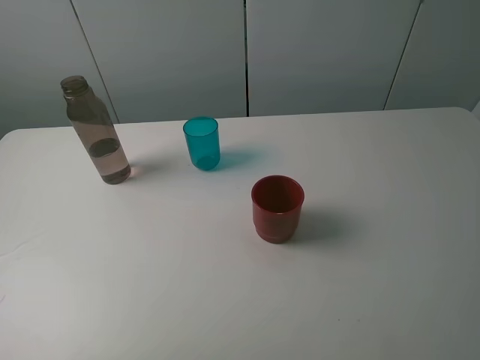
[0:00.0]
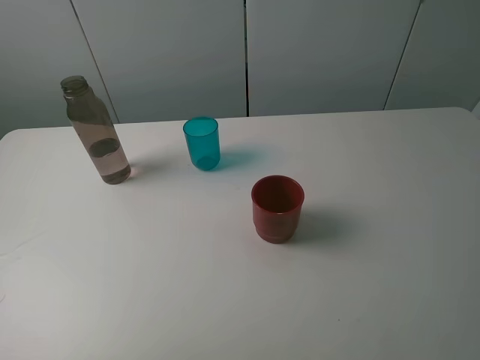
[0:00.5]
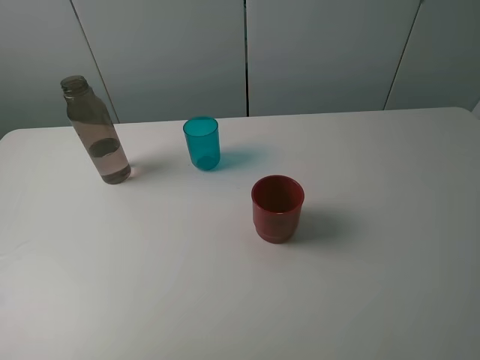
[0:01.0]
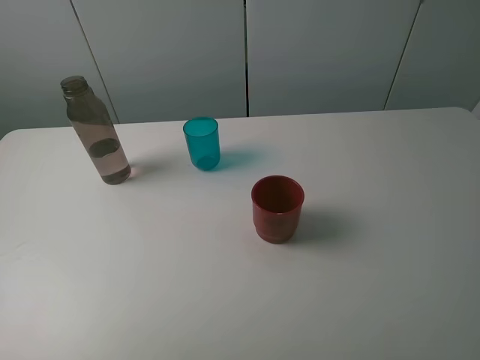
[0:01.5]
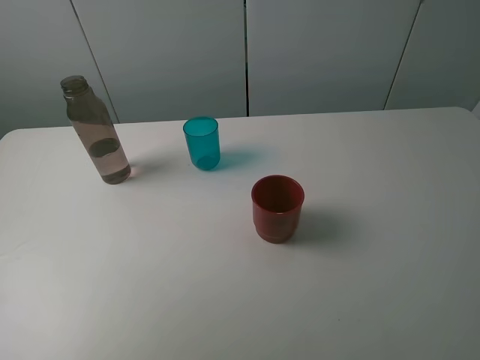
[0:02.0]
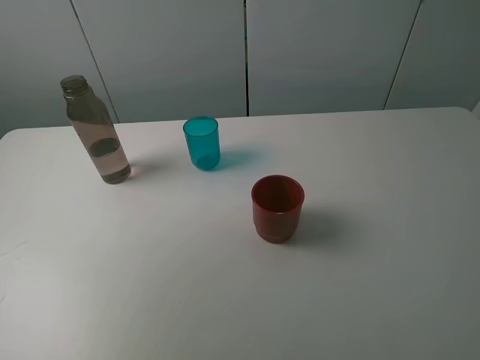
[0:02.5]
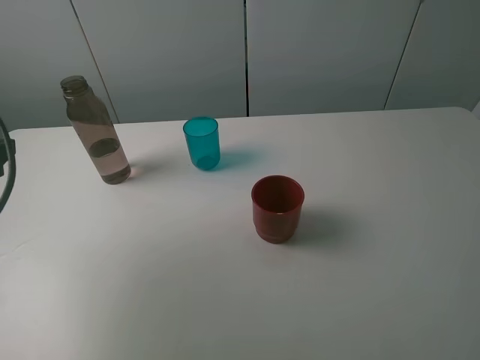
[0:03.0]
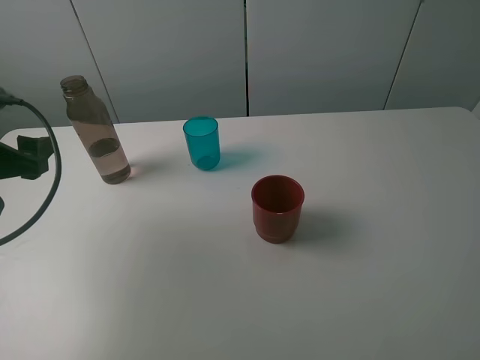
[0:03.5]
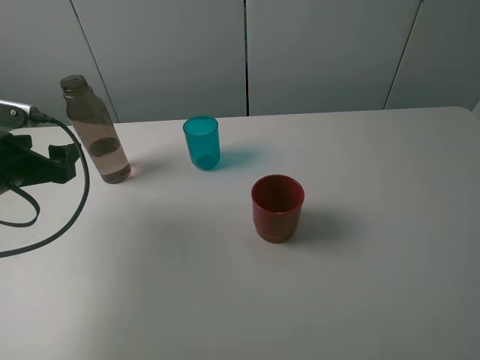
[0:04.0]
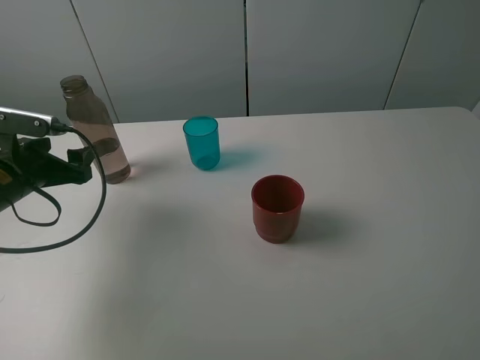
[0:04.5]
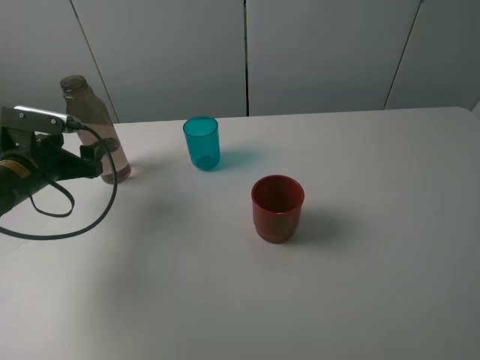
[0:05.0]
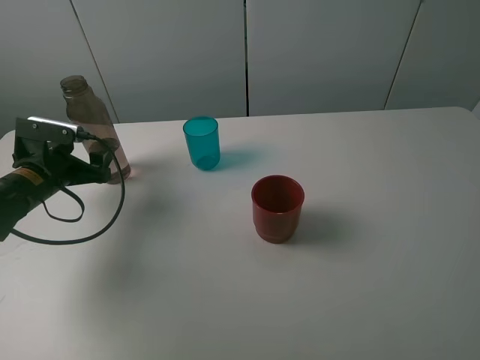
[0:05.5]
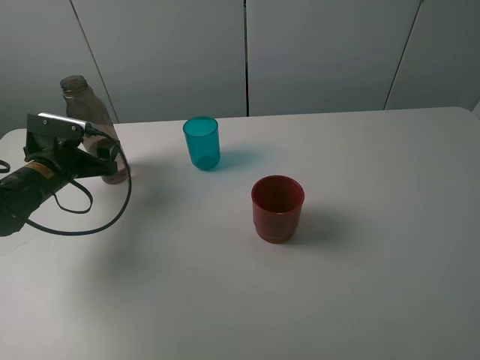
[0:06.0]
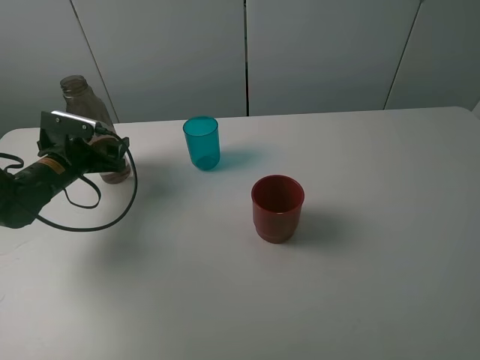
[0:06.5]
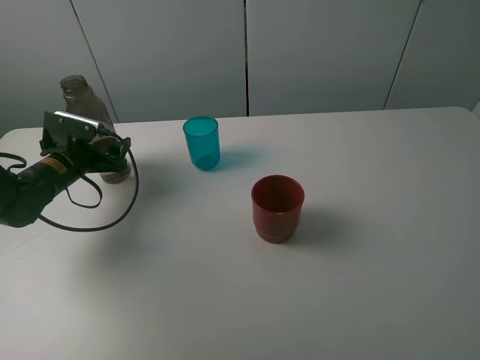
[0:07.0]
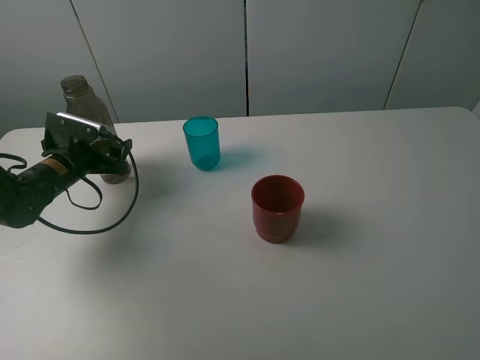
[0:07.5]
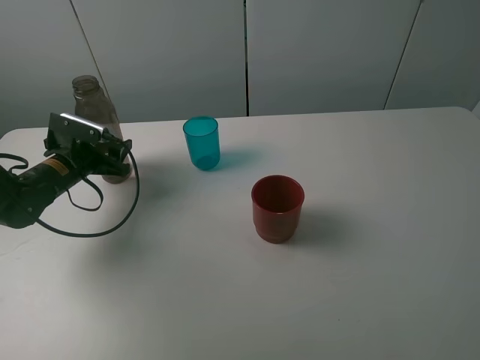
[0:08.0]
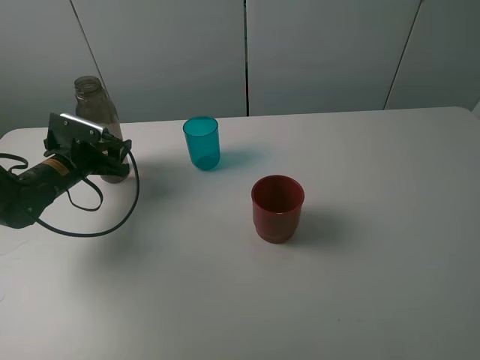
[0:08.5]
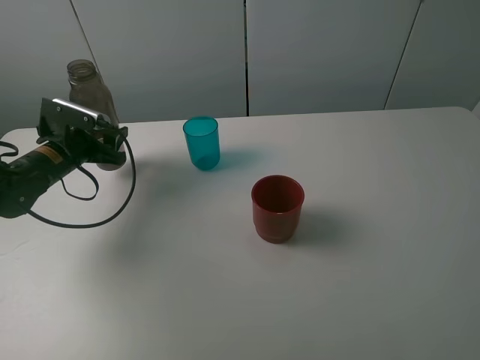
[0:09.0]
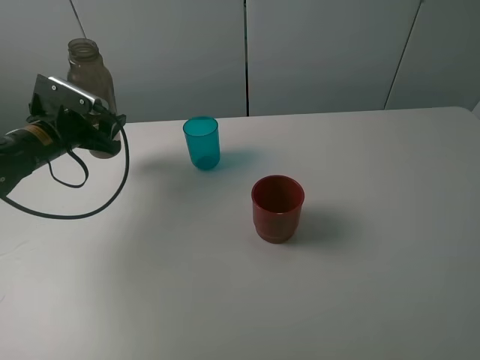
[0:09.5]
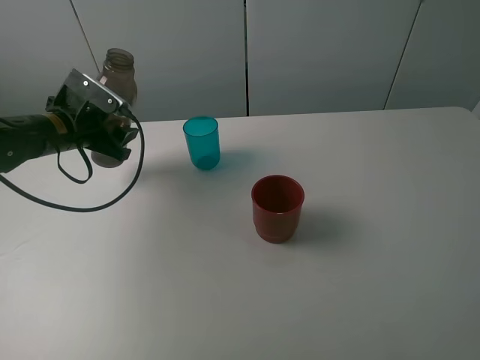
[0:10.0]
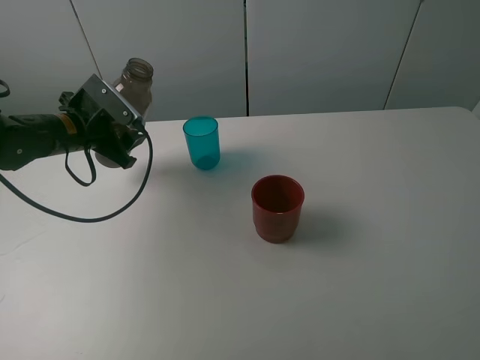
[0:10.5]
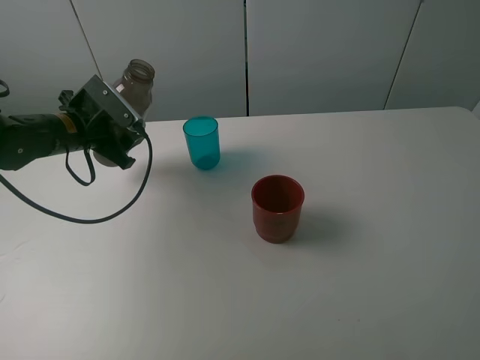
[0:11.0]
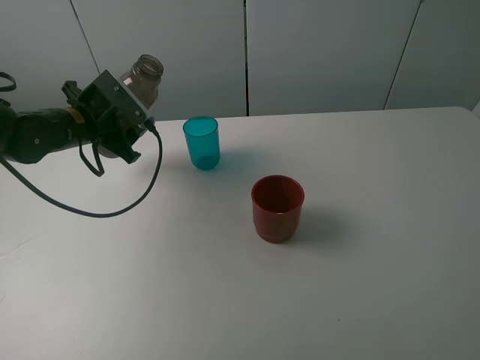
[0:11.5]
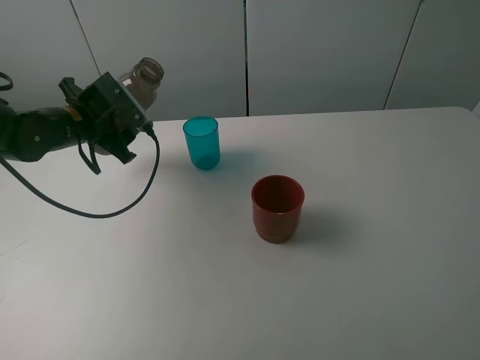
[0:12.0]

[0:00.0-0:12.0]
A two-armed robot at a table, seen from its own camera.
Task of the whole recording: pick up the bottle and pour water into the cup, then pick up the cup containing water and pour it into another cup.
Step, 0.0 to 8.0 s: Grasp the brown bottle with the left gripper.
2.0 to 4.0 s: The left gripper moves downward and forward, approximately 25 cm.
4.0 to 6.0 s: The left gripper travels forward and downward by roughly 10 cm.
6.0 to 8.0 s: The left gripper closes up.
8.0 to 10.0 s: The left gripper shifts some 10 cm upward.

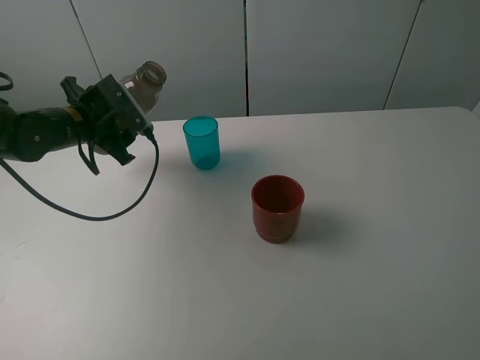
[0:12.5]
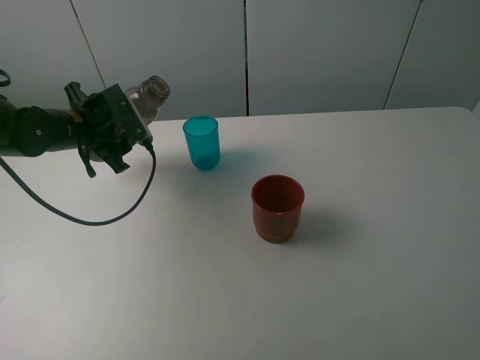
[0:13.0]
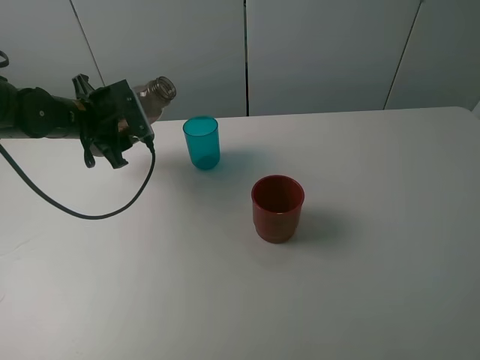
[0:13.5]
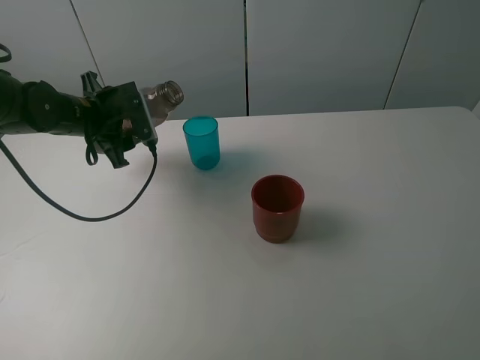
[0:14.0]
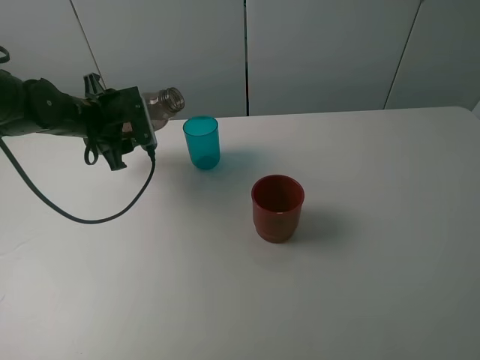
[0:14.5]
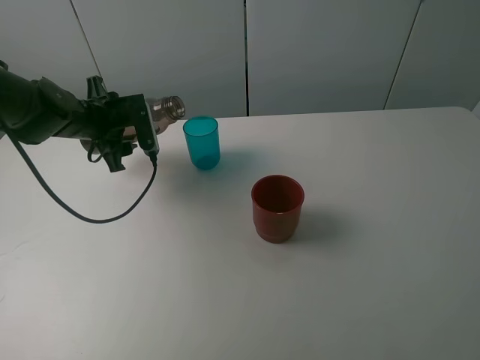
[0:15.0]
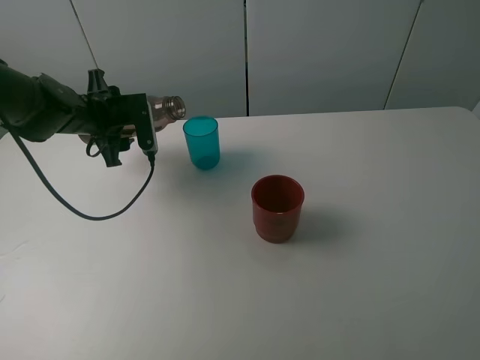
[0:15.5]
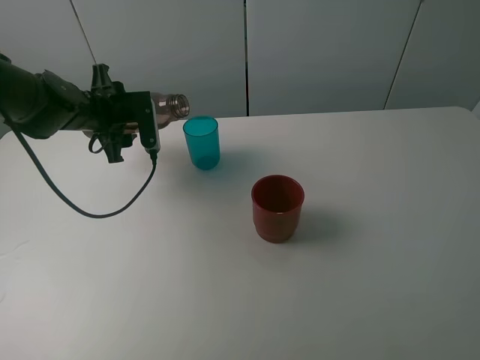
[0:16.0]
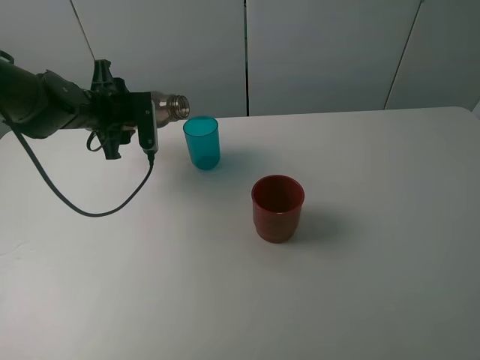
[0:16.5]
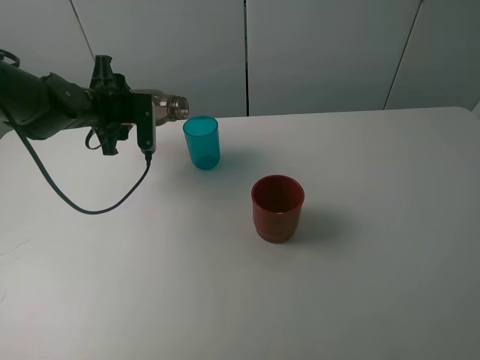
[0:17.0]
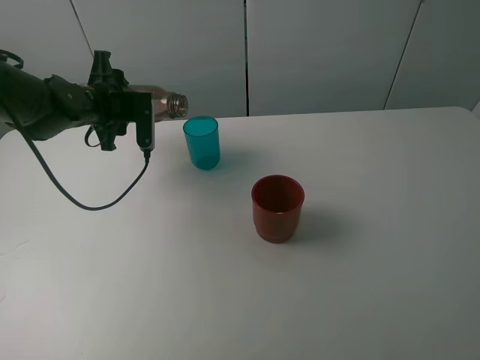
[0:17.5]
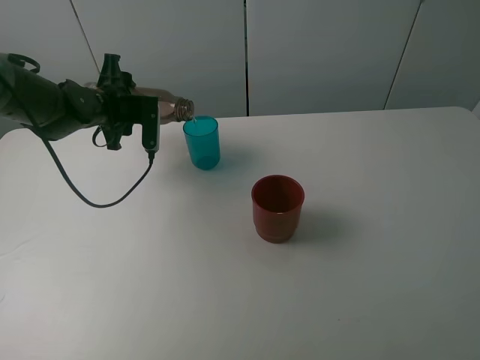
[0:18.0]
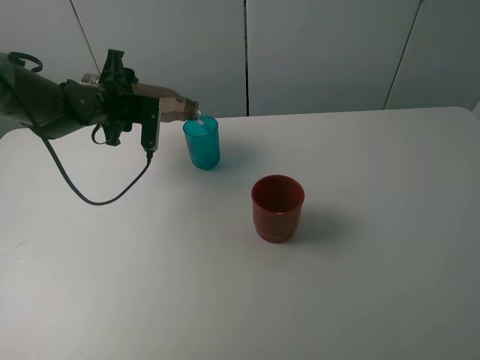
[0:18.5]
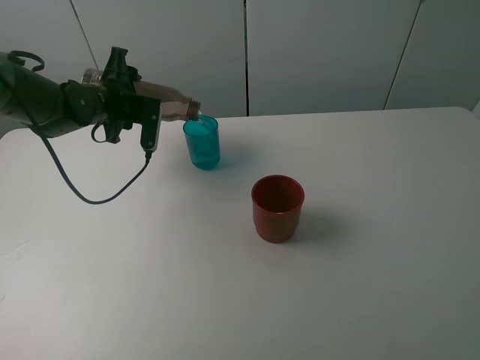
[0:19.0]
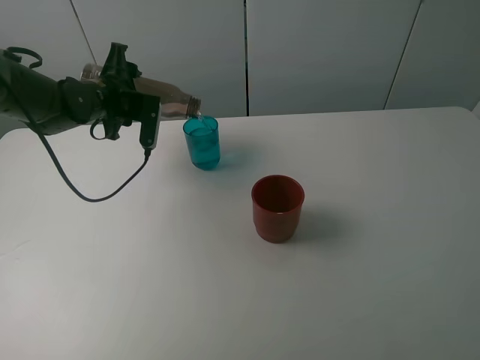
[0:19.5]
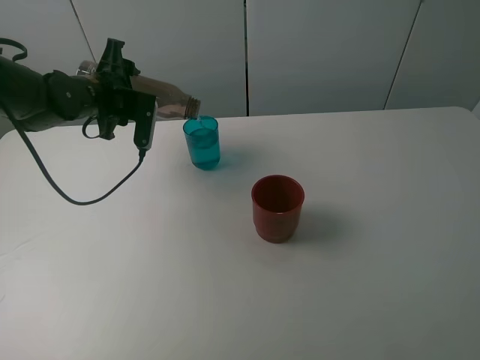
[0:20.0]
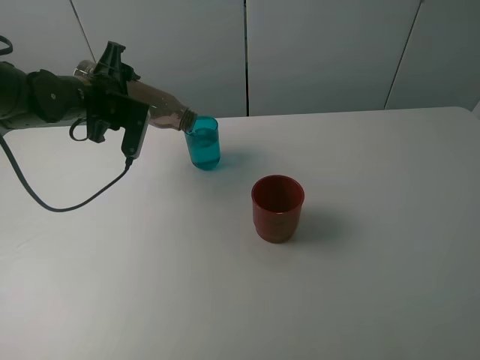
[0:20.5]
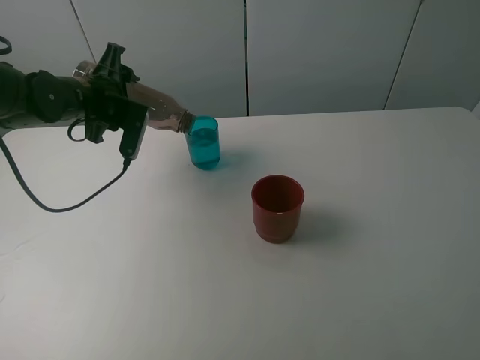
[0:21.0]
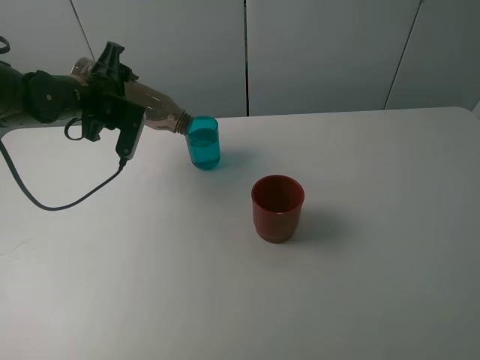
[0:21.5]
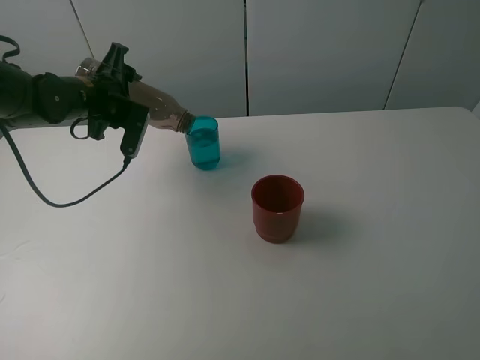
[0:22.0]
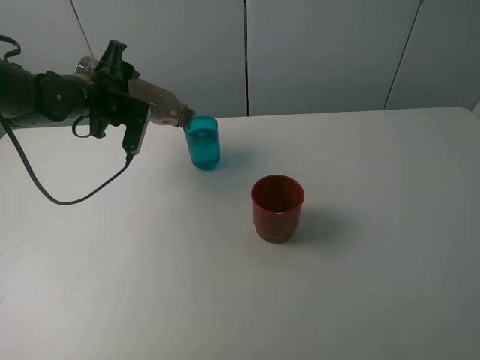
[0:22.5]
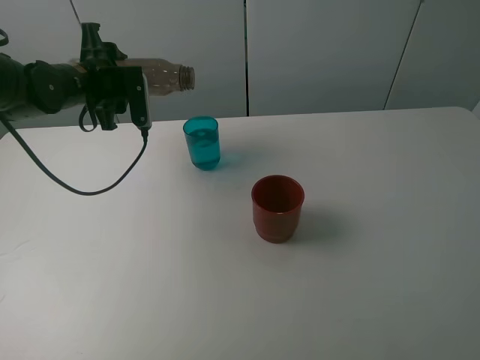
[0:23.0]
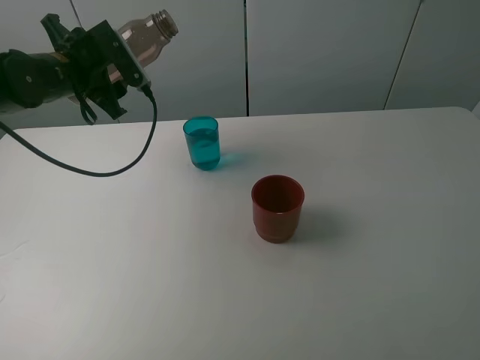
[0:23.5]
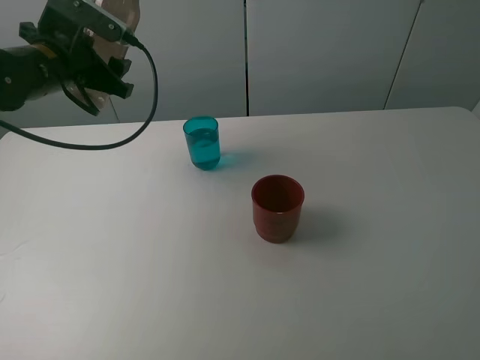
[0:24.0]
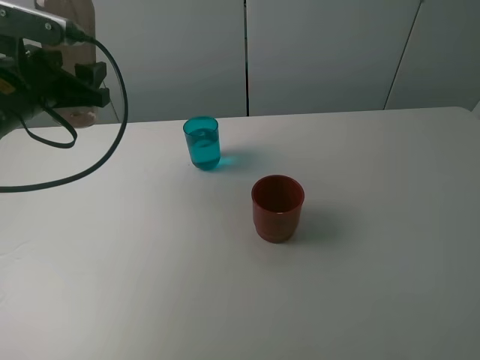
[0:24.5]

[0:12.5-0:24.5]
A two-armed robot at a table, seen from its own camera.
Task of the whole recording: pick up the bottle and pour water into the cup, then pick up the cup containing water and pour it into another cup.
Step, 12.5 to 22.5 s: Pour water from brown bottle to blue cup with the left gripper.
14.5 to 16.5 s: The grippers move only a little.
16.5 to 18.5 s: The grippers make only small movements.
18.5 to 20.5 s: There are only small adjustments of the grippers.
20.5 to 22.5 s: Neither gripper changes place.
22.5 to 24.5 s: The left gripper goes roughly 10 cm backward and upward.

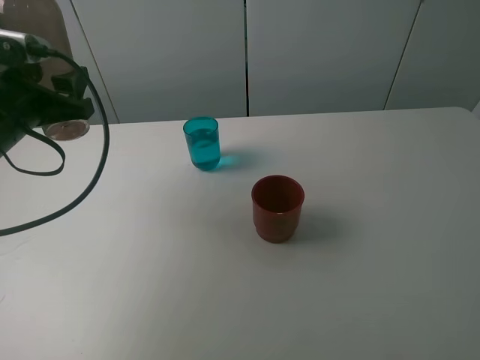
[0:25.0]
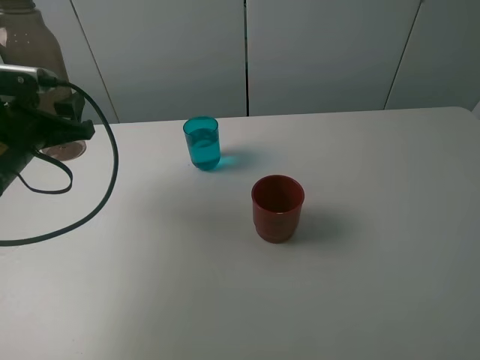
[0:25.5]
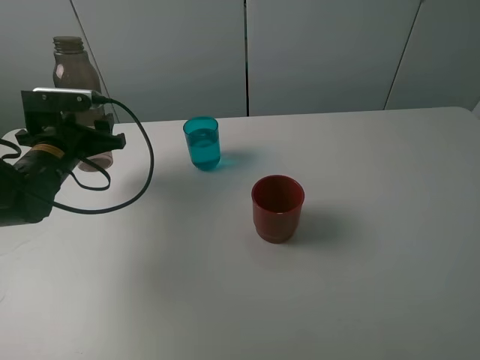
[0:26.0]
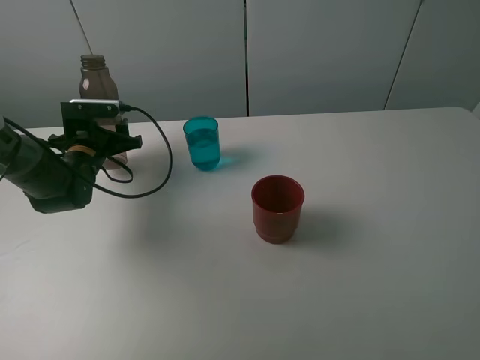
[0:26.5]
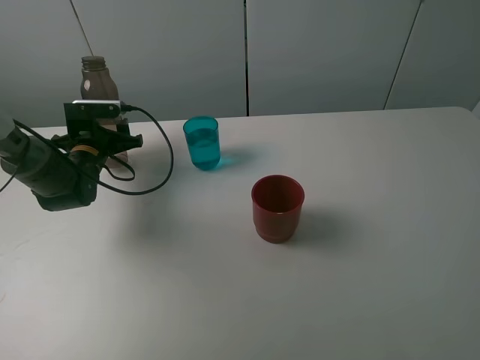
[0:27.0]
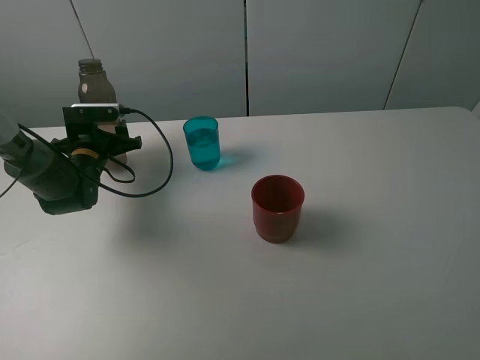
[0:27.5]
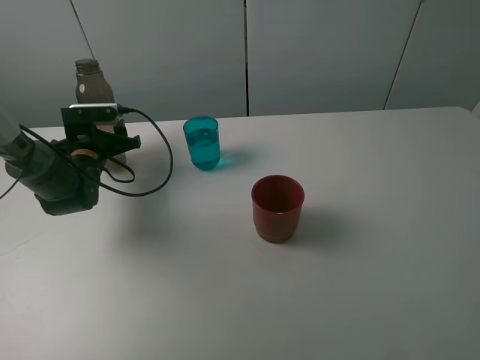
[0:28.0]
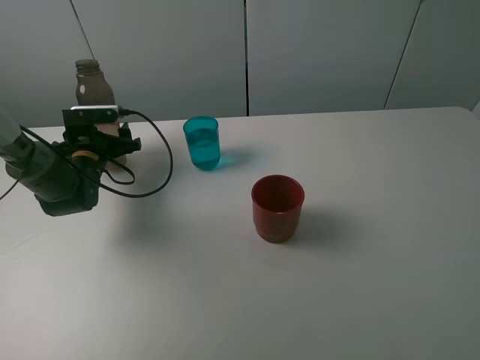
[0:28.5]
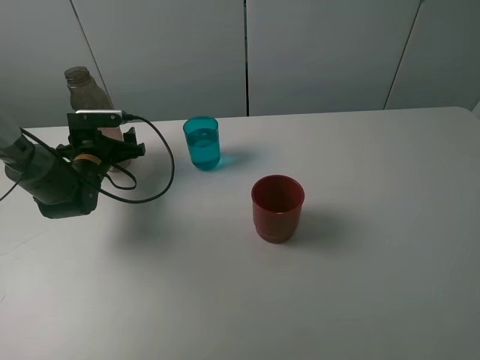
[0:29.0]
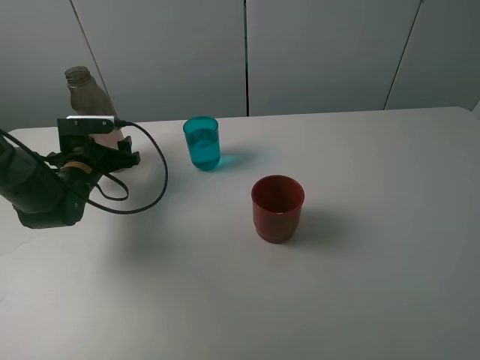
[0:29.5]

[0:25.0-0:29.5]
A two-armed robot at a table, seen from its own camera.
Task of the whole recording: pick up the bottle and pour water into the cup, then pick up the cup containing water and pour it into another cup.
Step, 25.0 to 28.5 s: Place the brown bottle with the left gripper.
25.0 to 27.0 s: The left gripper heads downward and forward, covering about 20 cm.
27.0 to 29.5 s: The left gripper opens its fingers.
